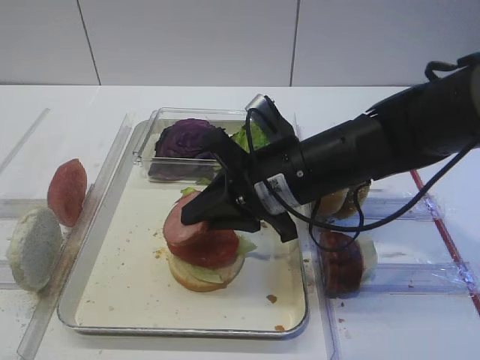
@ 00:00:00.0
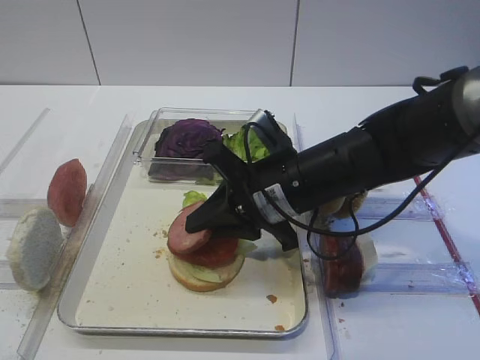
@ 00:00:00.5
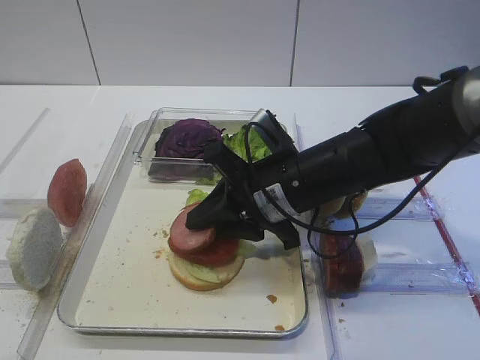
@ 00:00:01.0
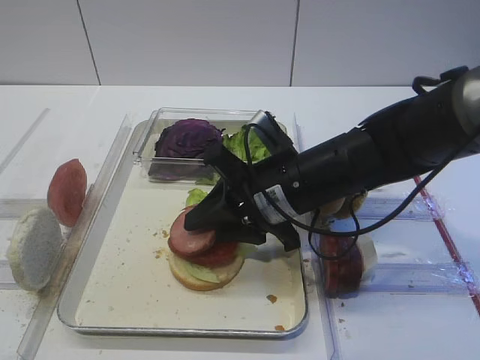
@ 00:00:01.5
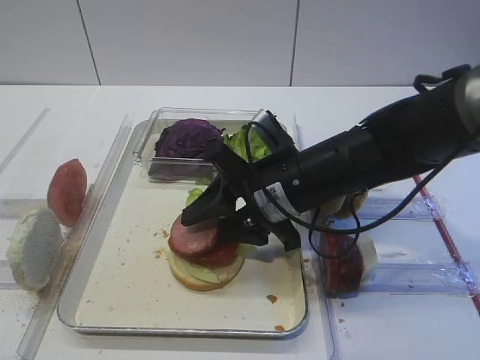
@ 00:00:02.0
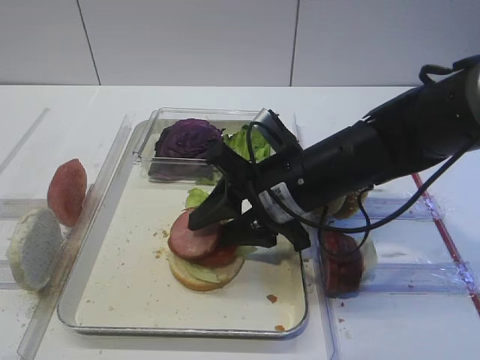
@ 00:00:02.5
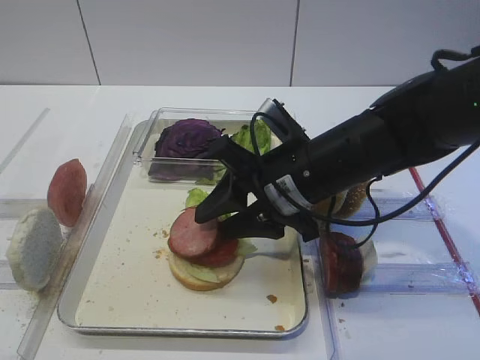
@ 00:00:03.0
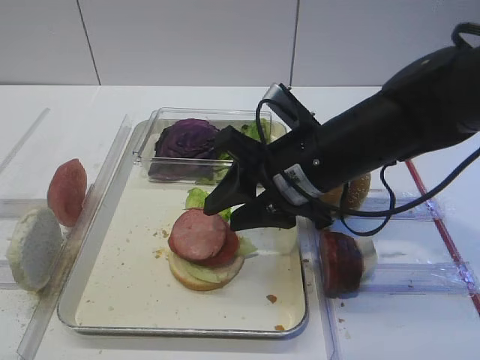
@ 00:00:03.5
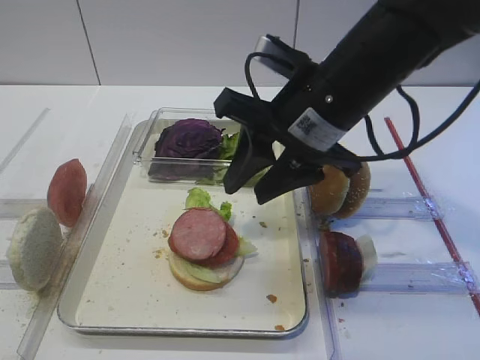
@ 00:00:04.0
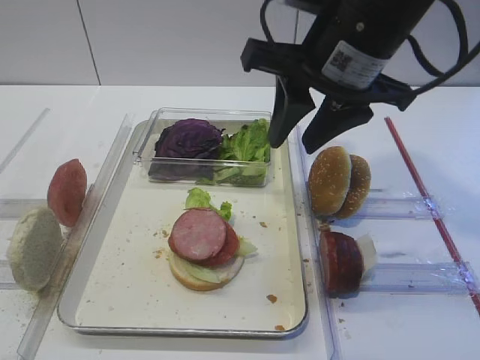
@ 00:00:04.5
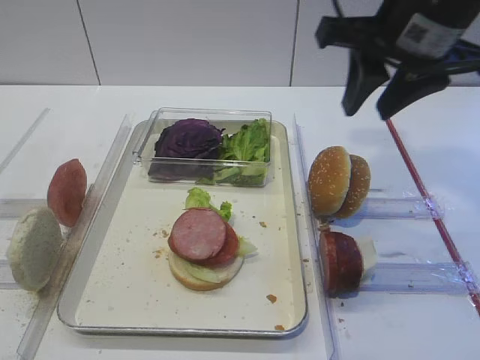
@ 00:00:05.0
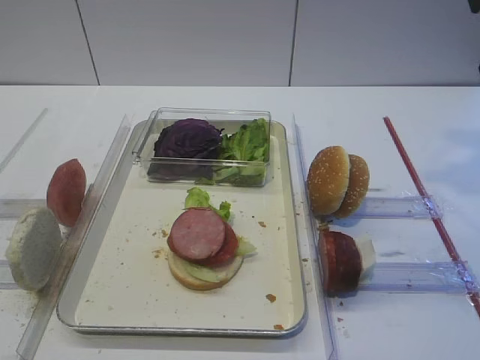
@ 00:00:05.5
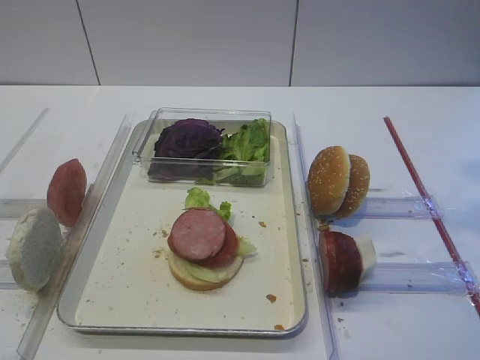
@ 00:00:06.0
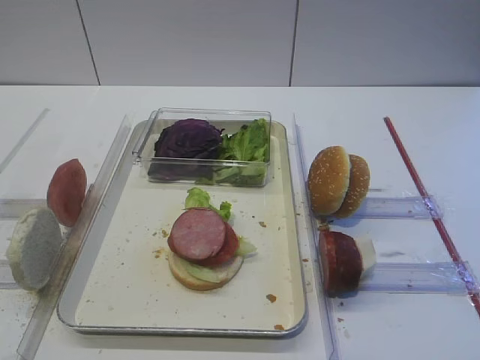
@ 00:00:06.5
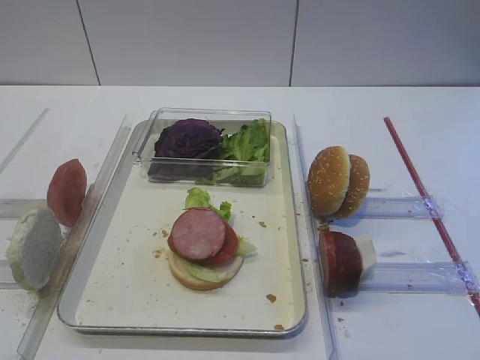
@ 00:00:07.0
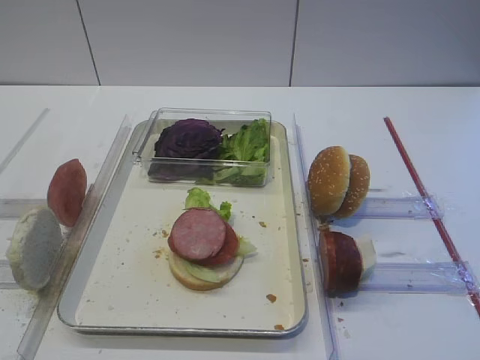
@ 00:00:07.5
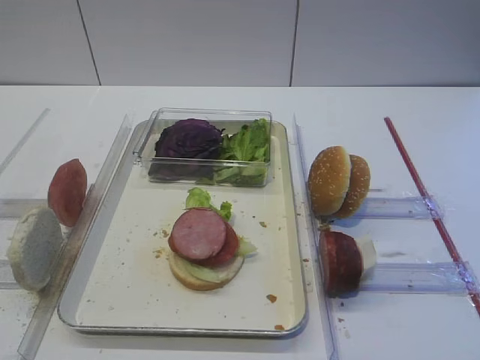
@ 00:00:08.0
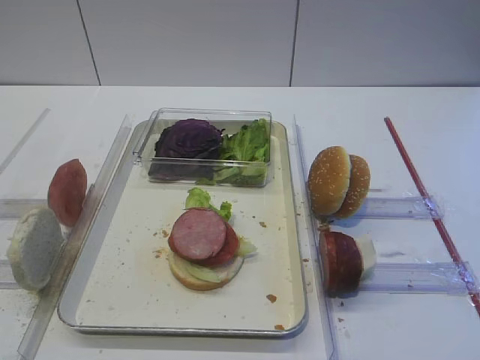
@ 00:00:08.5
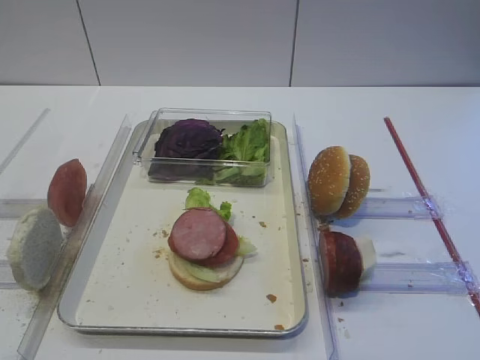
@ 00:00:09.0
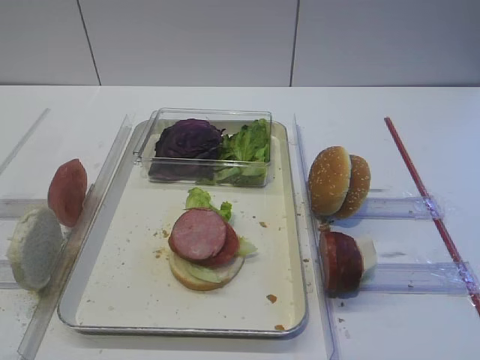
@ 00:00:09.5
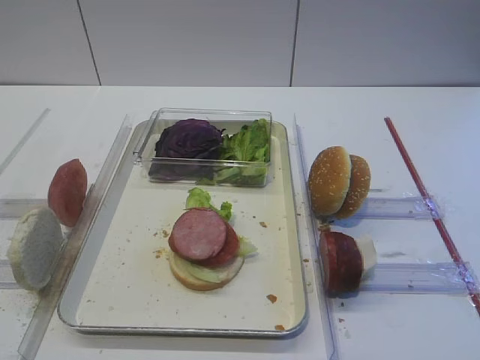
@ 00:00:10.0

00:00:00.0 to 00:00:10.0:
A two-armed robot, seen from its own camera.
Step, 00:00:00.0 to 00:00:03.5: Place the cutlet on the tomato slice with the right gripper.
00:00:00.0 to 00:00:02.0: The right gripper opens its fingers.
00:00:02.0 to 00:00:04.0: The right gripper is displaced upward by approximately 10 cm.
00:00:04.0 to 00:00:06.0: The right gripper shifts some 20 cm to the right and upward.

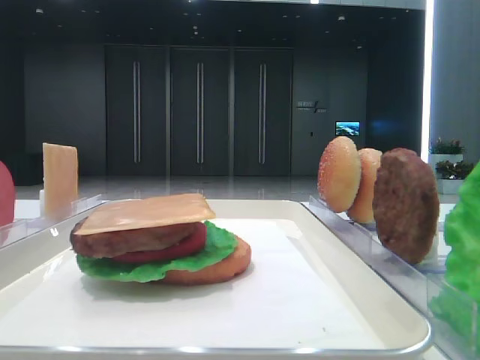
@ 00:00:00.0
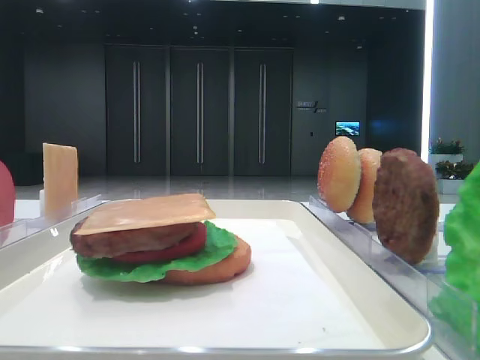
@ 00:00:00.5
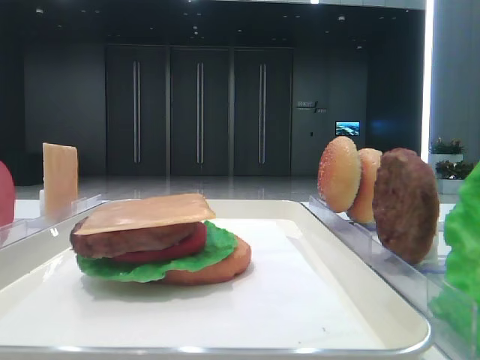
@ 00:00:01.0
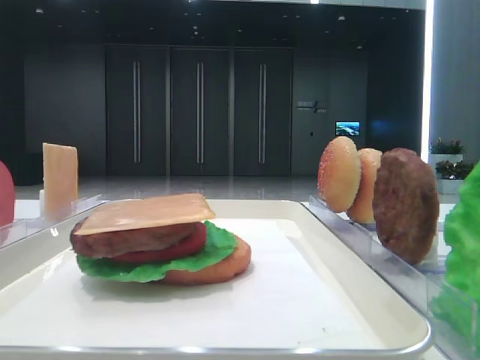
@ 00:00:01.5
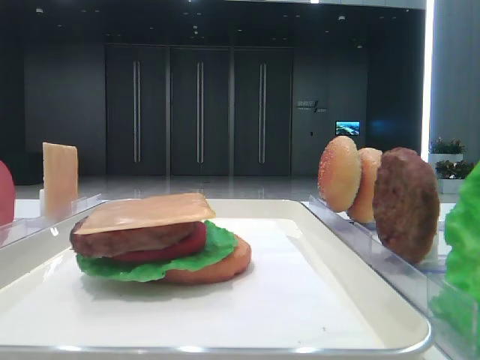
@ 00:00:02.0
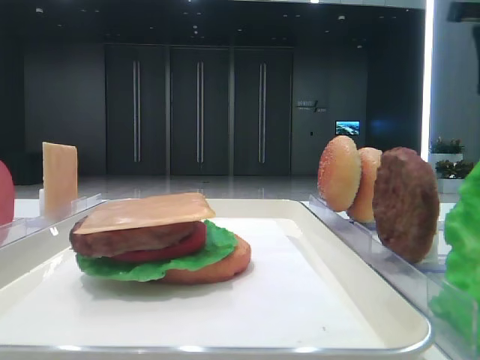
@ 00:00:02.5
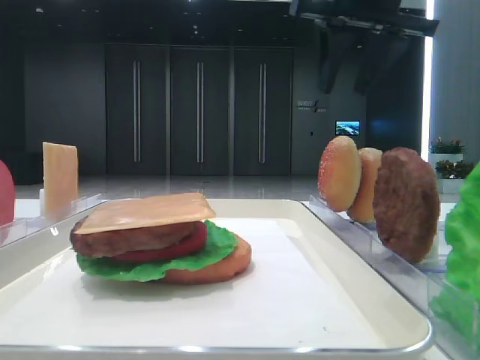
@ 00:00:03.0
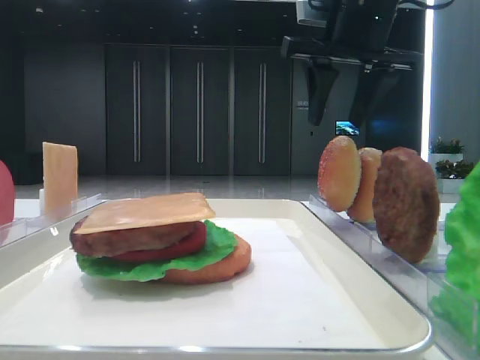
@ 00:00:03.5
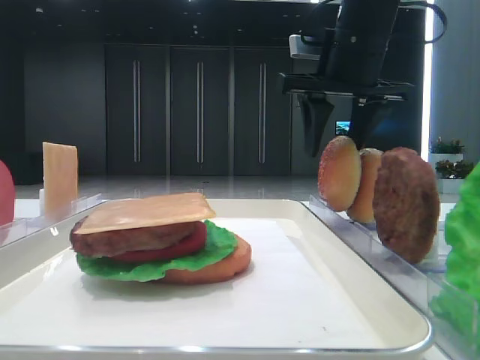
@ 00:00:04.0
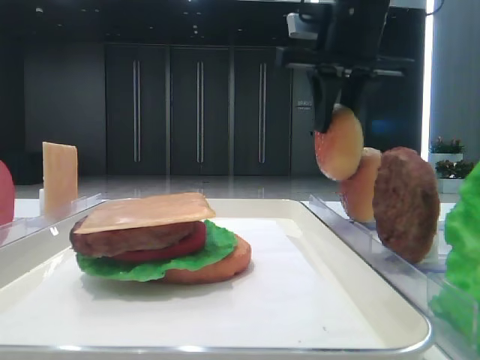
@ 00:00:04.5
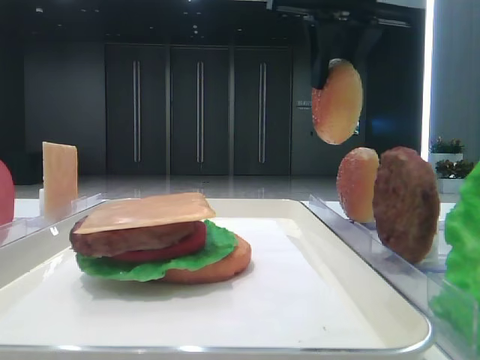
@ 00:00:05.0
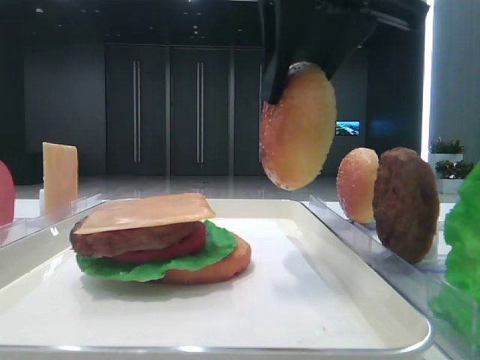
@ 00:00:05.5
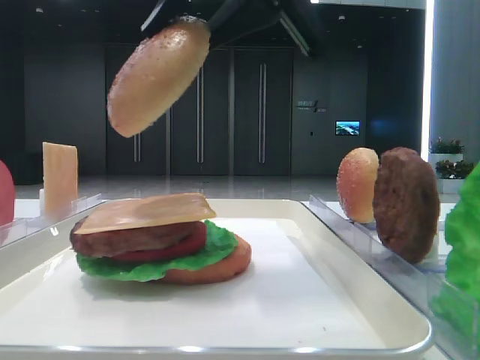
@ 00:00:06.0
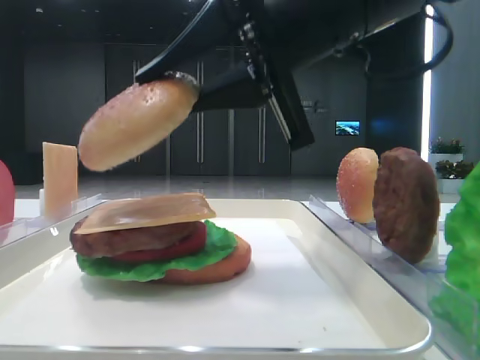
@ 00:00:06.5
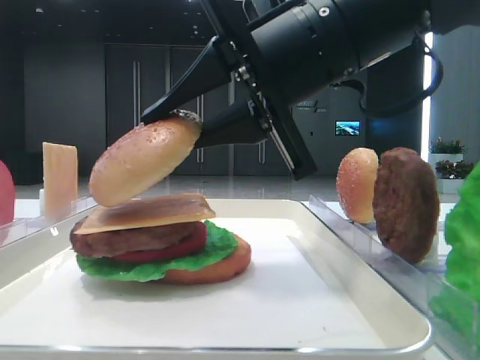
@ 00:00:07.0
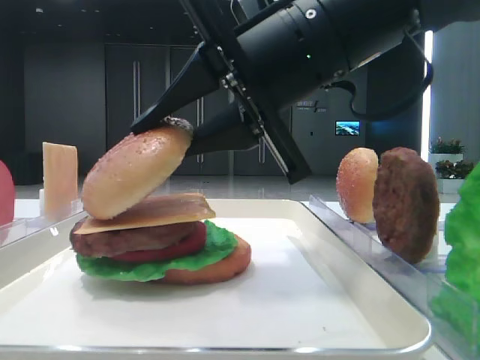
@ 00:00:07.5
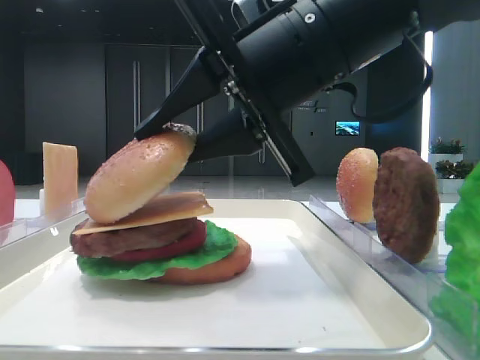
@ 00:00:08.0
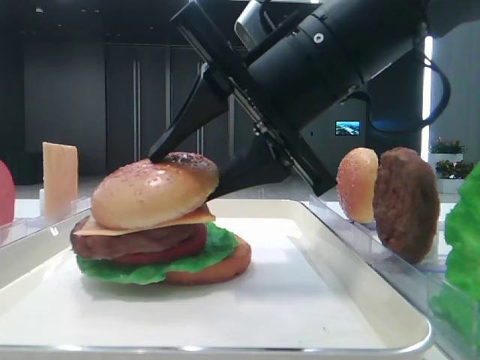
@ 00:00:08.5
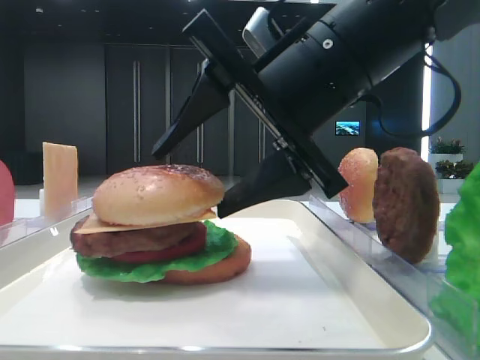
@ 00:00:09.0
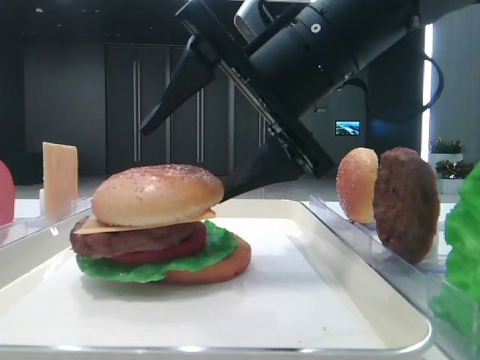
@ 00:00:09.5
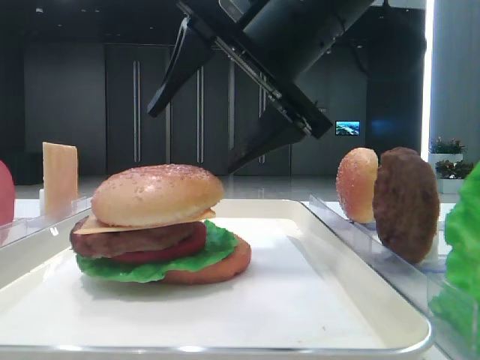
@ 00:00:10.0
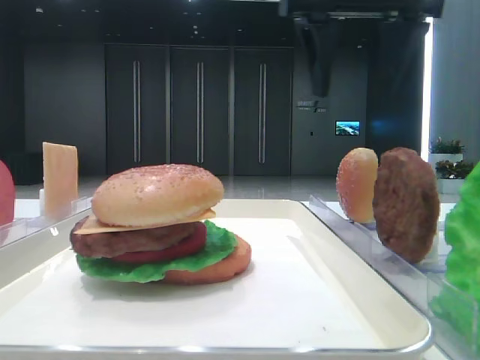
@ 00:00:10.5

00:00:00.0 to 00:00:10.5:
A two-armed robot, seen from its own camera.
Step, 00:00:00.0 to 00:00:04.0: Pick up the top bread slice with the right hand.
Step, 00:00:04.5 to 00:00:08.5: Place the top bread slice on the cheese with the right hand.
00:00:02.0 to 00:00:04.0: The right gripper goes approximately 30 cm forward and to the left.
00:00:04.0 to 00:00:06.5: The right gripper goes some 15 cm backward, and closes.
00:00:06.5 to 00:00:08.5: The right gripper opens up.
00:00:08.5 to 00:00:10.5: The right gripper heads upward, forward and to the right, covering roughly 15 cm, and opens.

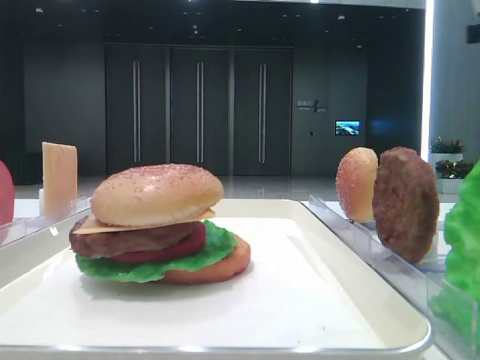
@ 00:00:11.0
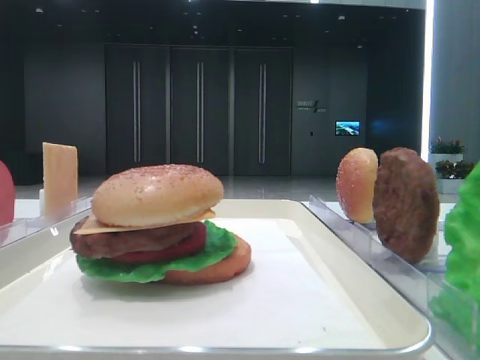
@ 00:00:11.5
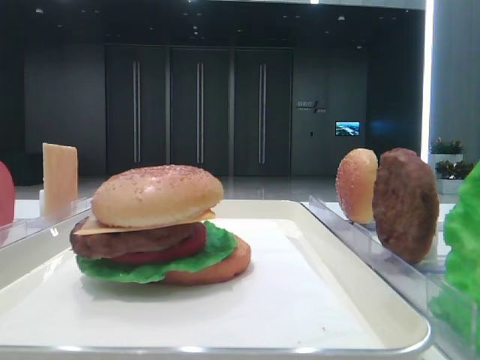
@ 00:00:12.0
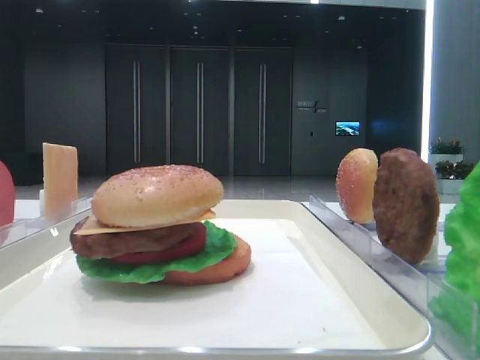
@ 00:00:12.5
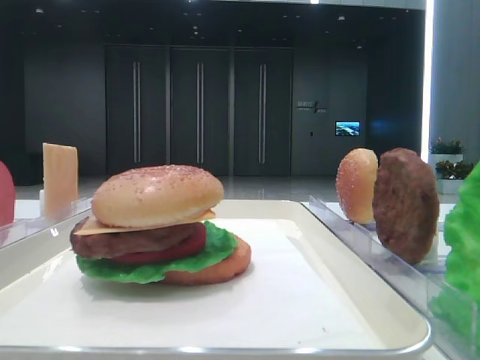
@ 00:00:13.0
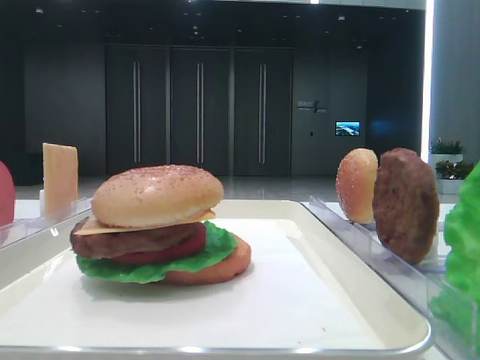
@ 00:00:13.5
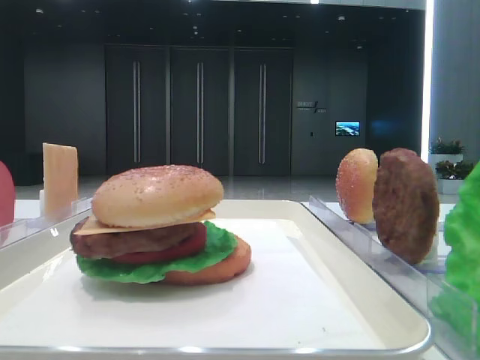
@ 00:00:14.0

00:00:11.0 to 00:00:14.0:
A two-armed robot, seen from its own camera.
00:00:11.0 to 00:00:12.5: The right gripper moves backward, about 35 cm.
